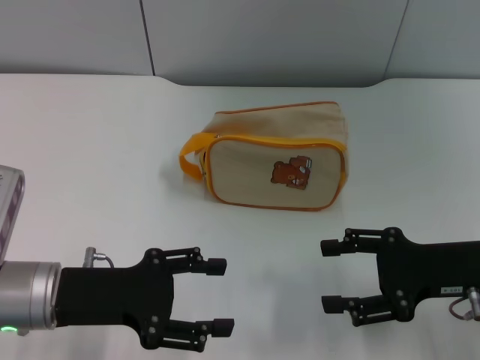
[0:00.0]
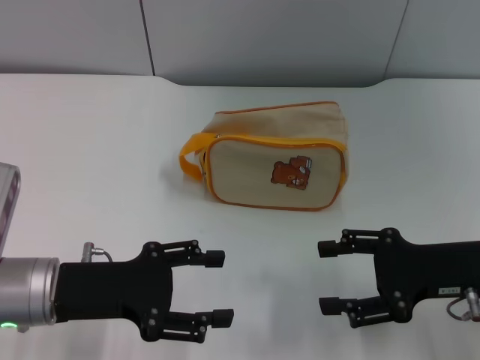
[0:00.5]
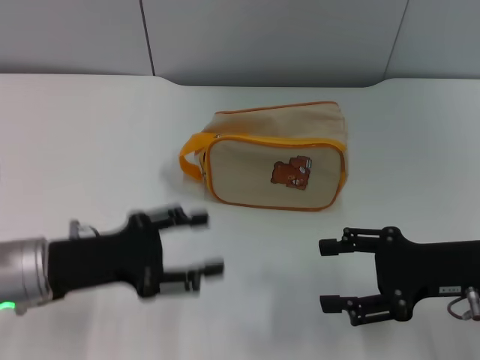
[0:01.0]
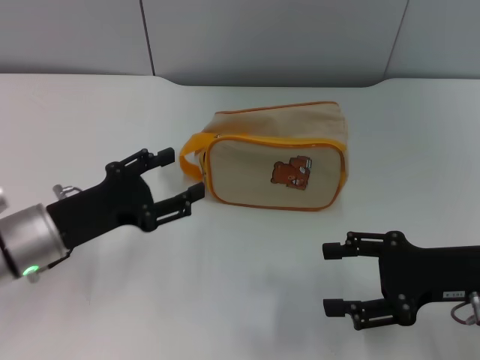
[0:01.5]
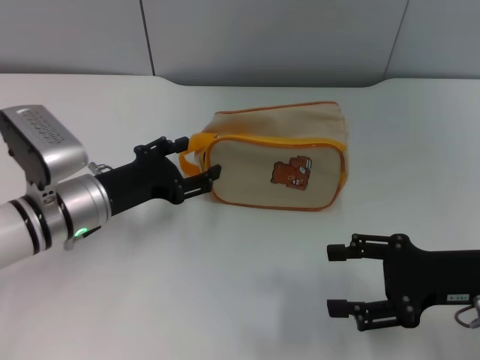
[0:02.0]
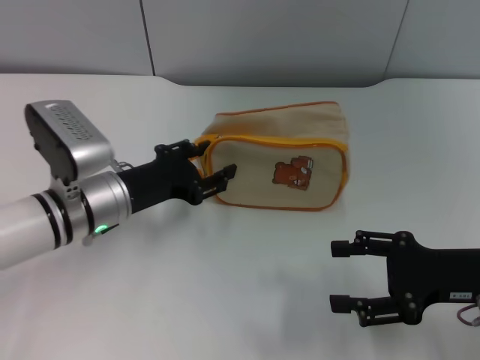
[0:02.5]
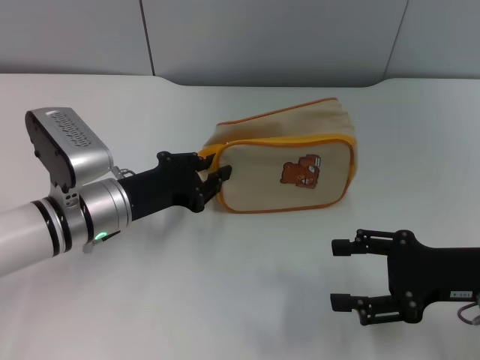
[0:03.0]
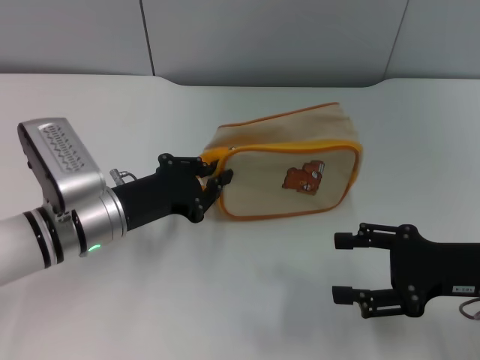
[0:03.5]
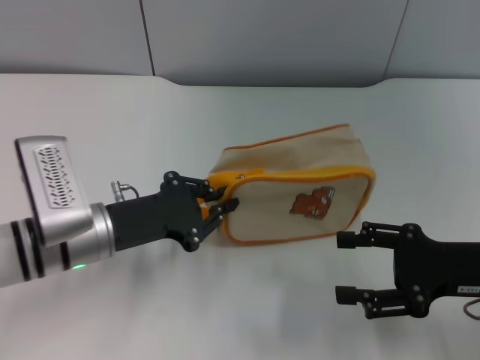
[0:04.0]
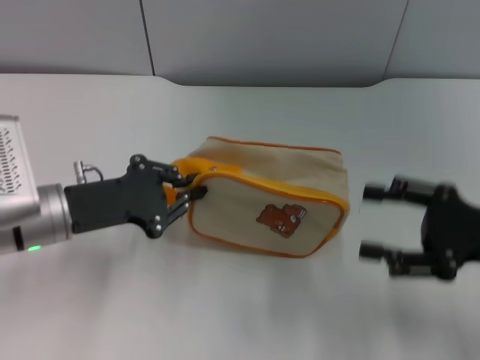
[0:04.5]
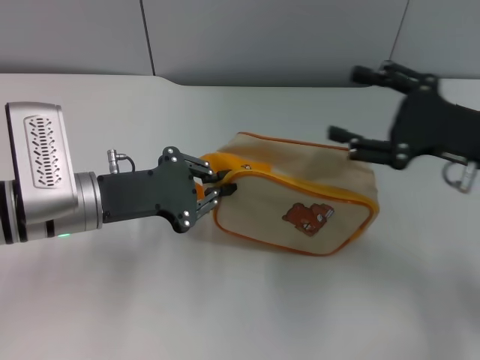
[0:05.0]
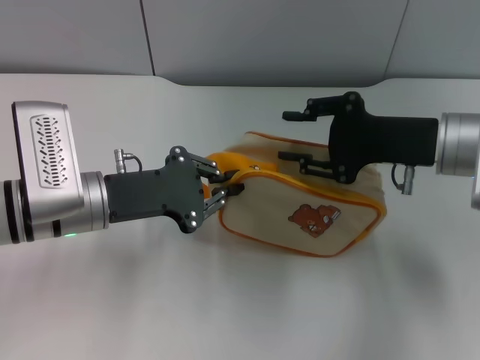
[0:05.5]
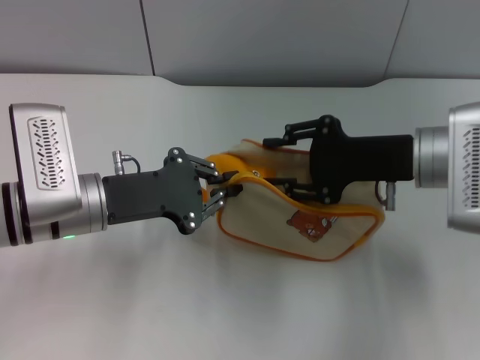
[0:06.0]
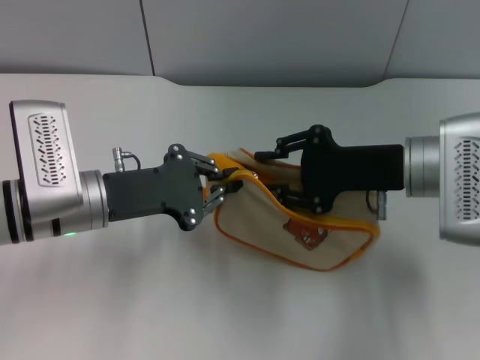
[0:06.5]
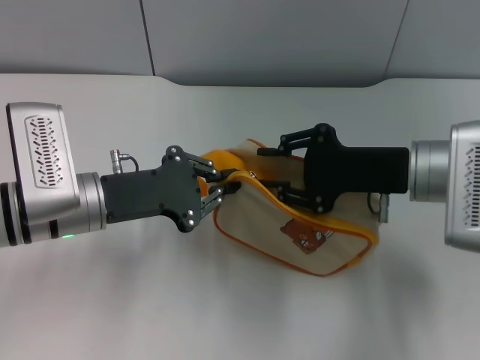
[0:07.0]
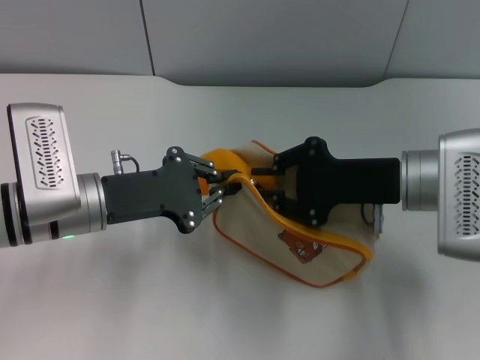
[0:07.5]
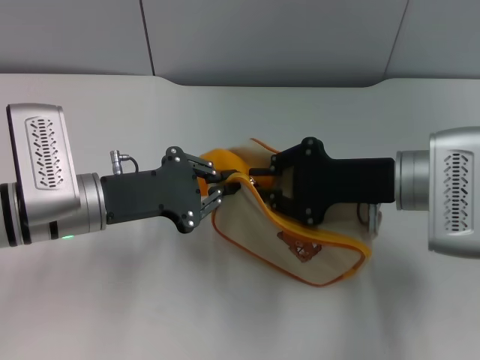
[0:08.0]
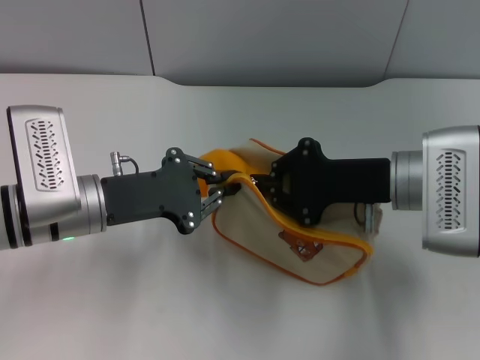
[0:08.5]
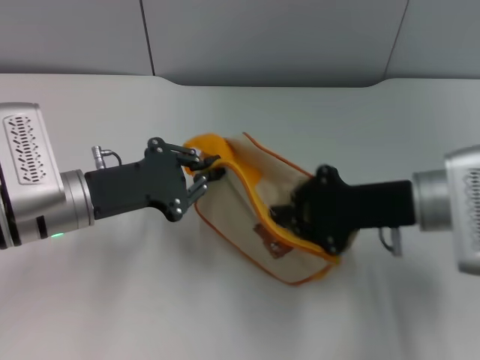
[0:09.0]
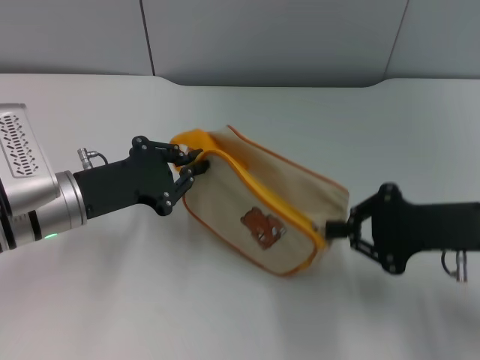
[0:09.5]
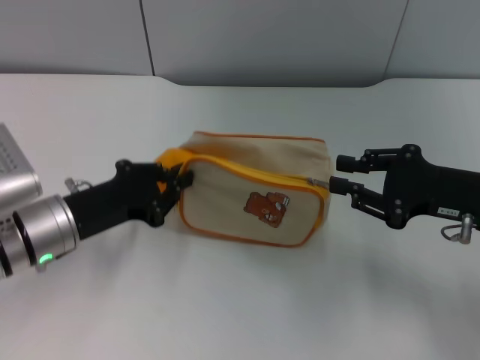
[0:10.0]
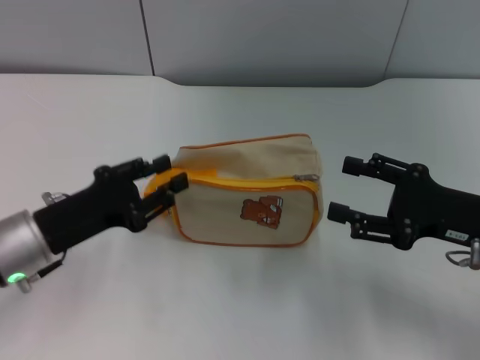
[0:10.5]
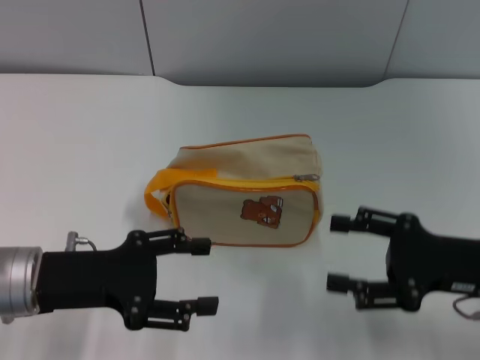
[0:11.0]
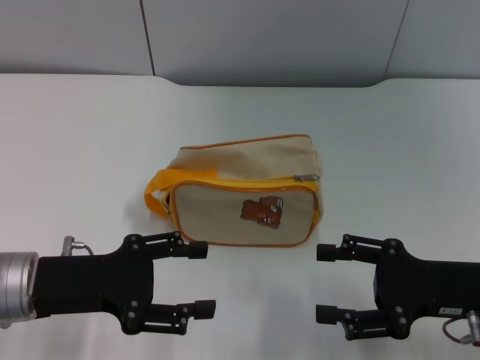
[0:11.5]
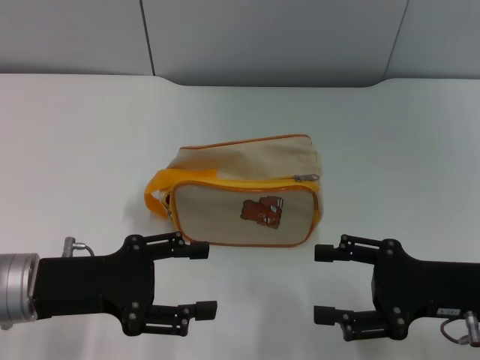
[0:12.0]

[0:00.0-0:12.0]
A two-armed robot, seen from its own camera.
Step, 0:00.0 to 0:04.5: Pick up the bag with left gripper.
Step, 0:05.0 to 0:10.0: Unzip the zipper of bag with right gripper.
0:00.0 to 0:02.0: The left gripper goes some 10 cm forward.
0:02.0 to 0:04.0: The left gripper closes up.
0:04.0 to 0:06.0: The right gripper moves forward and to the left, some 10 cm, and closes up.
0:06.0 to 0:08.0: The grippers stay close to where they were, moving slightly.
0:08.0 to 0:10.0: The right gripper shifts about 10 cm to the right.
0:10.0 to 0:12.0: Both grippers move backward, some 5 cm. The left gripper opens up, while the right gripper opens up.
